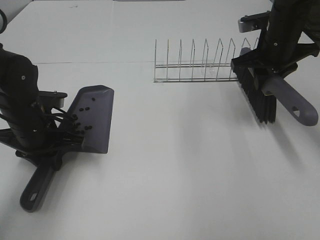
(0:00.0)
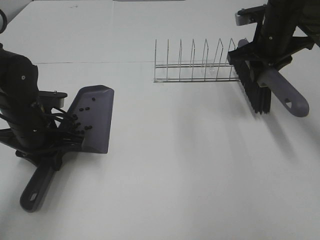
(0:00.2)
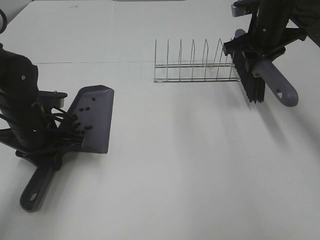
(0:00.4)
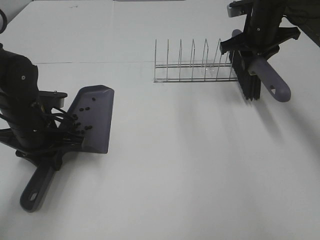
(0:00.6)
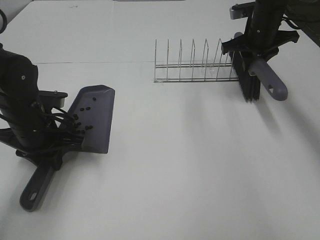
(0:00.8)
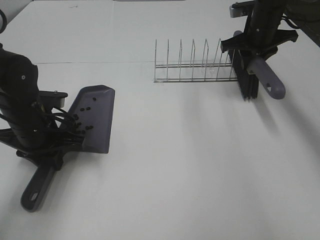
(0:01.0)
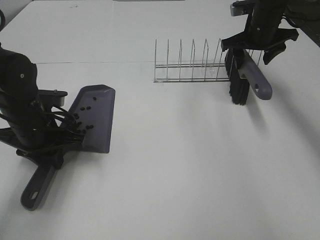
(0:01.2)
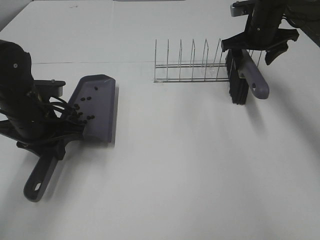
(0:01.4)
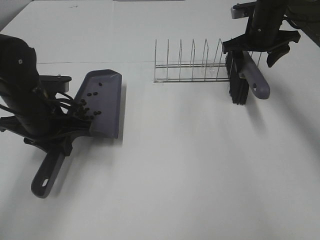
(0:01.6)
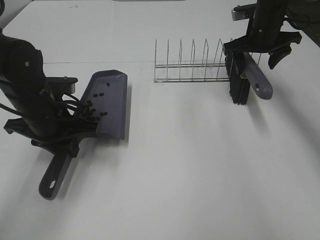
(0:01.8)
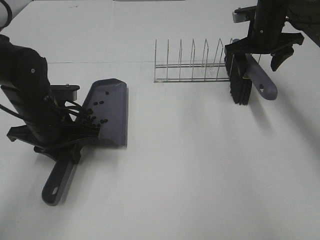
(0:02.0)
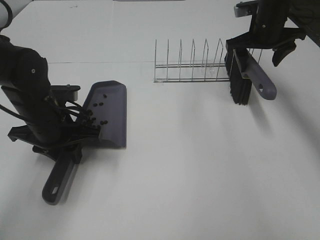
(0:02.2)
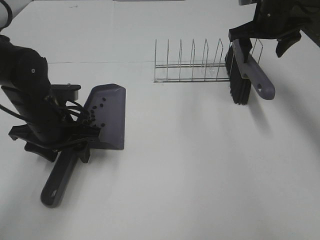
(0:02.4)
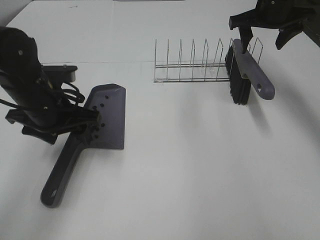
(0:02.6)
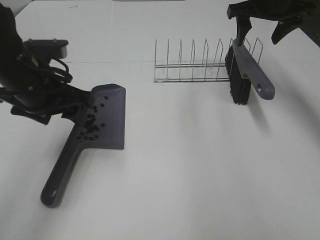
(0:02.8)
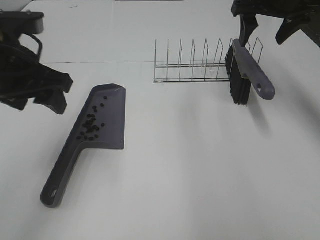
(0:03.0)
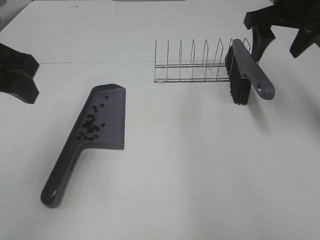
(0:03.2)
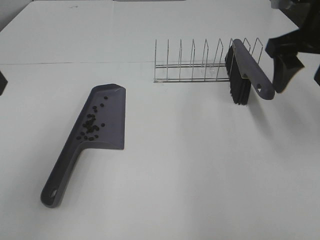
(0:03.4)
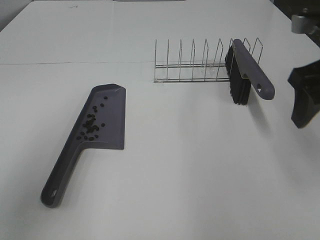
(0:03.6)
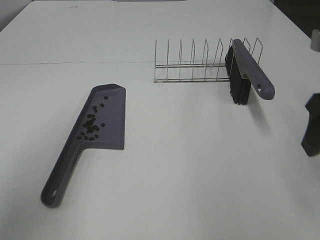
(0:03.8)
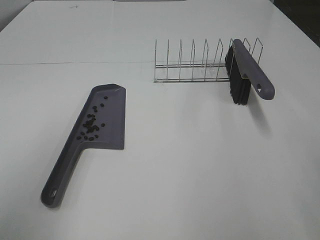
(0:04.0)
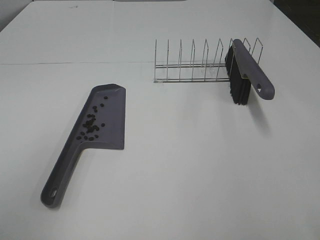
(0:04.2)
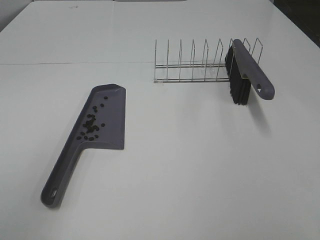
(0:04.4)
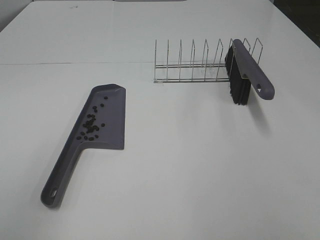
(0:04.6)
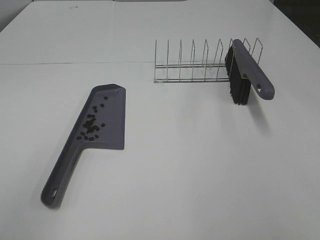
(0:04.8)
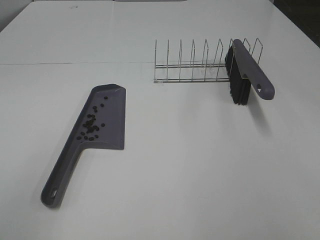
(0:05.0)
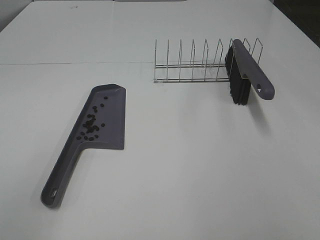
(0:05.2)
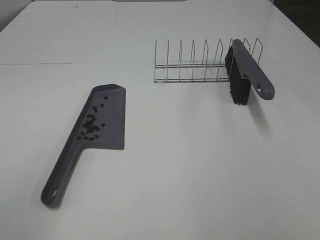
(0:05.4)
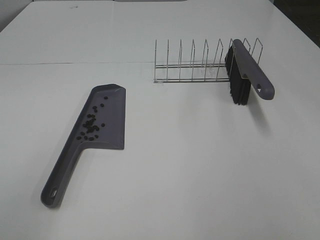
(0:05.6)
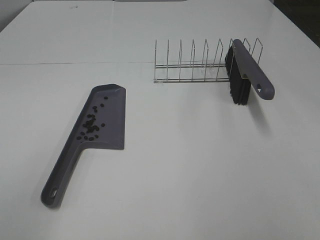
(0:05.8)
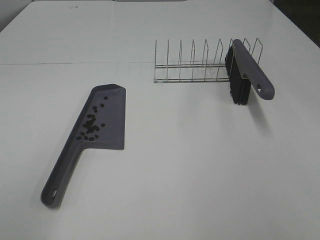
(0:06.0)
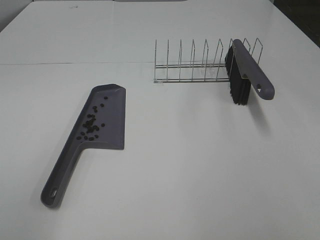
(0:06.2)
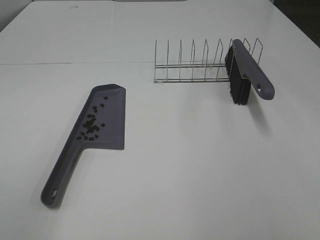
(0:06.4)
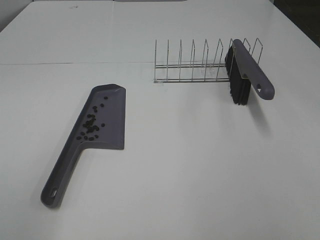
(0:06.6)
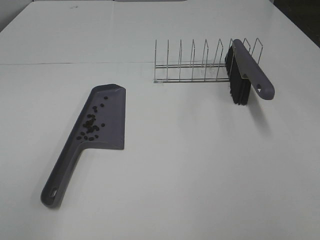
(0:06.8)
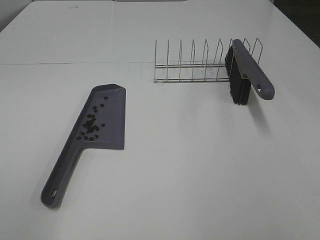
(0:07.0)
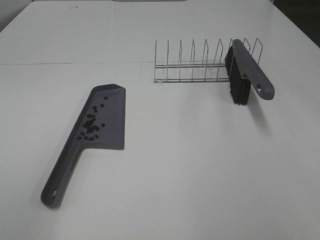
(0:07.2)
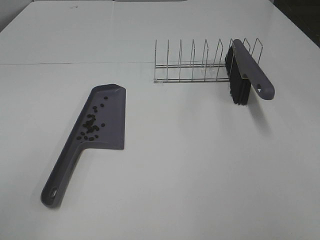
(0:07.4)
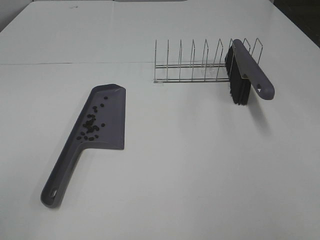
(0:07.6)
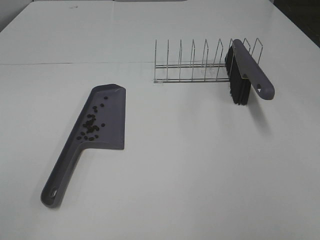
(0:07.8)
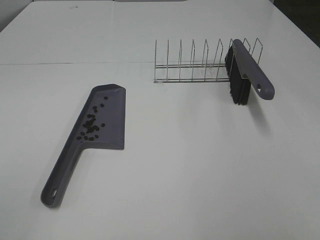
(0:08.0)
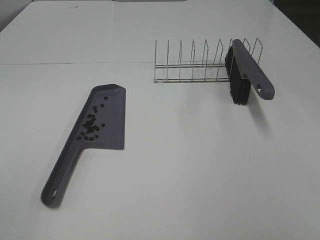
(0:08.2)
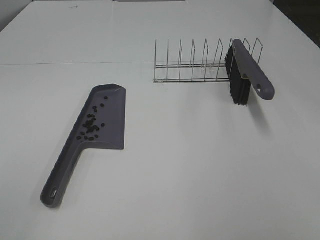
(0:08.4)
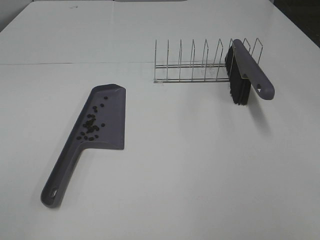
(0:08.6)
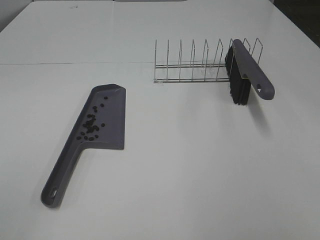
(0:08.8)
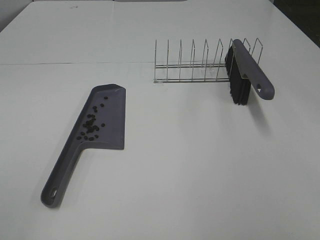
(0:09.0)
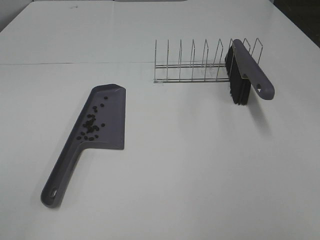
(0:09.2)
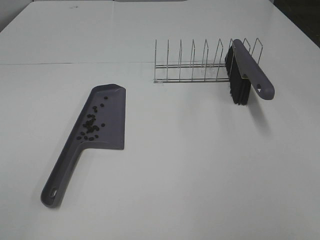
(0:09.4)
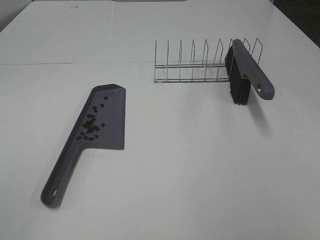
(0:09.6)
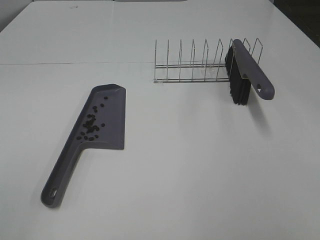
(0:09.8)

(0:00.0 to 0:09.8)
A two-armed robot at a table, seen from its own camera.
Task of the whole recording: Sweep Coffee Bean.
Step, 0:00.0 - 0:02.2: Right hand:place the broom on the rack.
Step, 0:02.4 - 0:02.6: Left hand:place the dustpan on the table.
0:00.0 - 0:01.4: The right gripper is displaced forward by about 10 cm, and opens its fingers.
0:01.4 - 0:02.8: Both grippers move upward, some 10 cm. The left gripper opens up.
0:02.8 - 0:04.2: The left gripper travels backward, to the left and upward by roughly 25 cm. Meanwhile the right gripper goes some 35 cm backward.
0:08.4 - 0:09.8: Neither gripper changes place.
